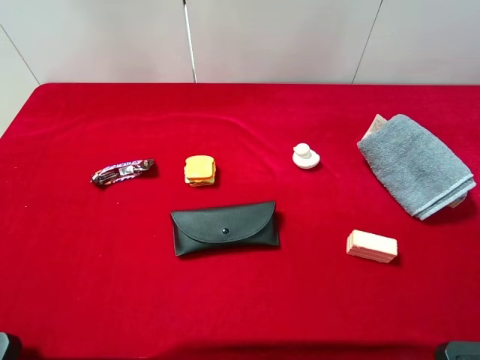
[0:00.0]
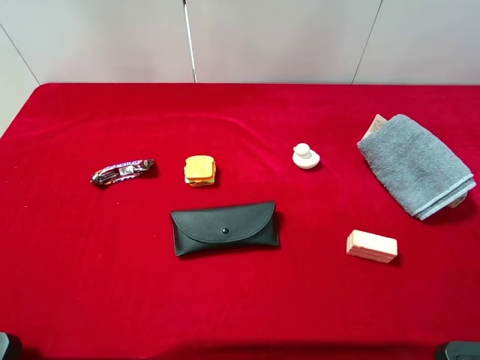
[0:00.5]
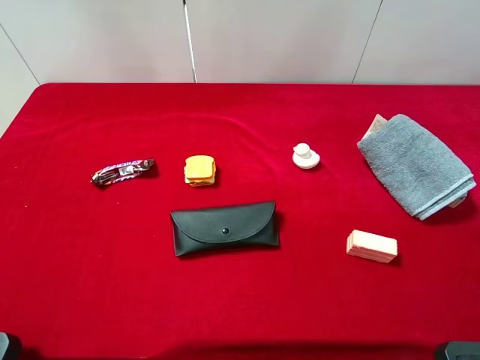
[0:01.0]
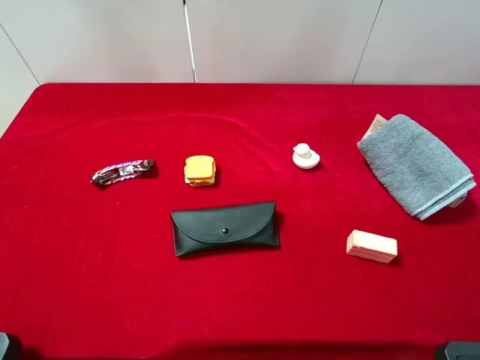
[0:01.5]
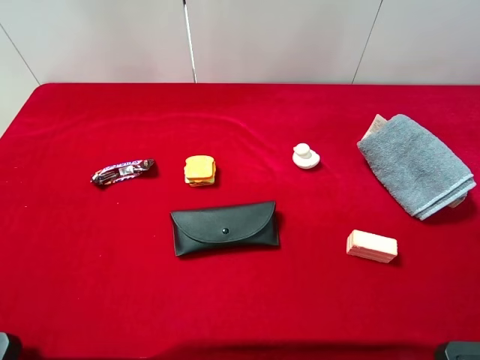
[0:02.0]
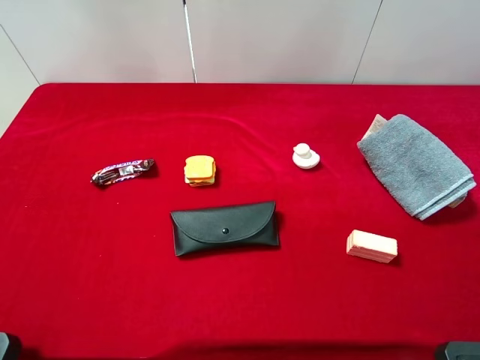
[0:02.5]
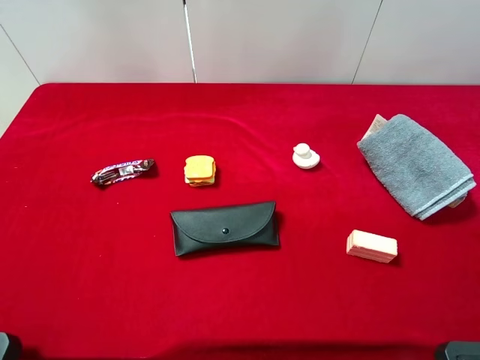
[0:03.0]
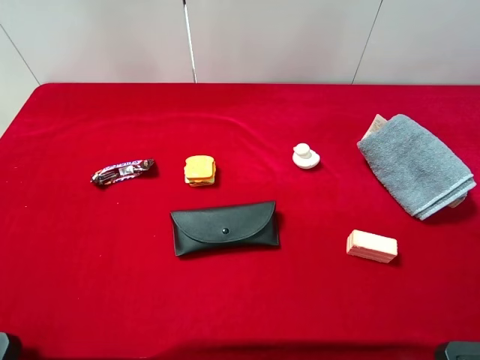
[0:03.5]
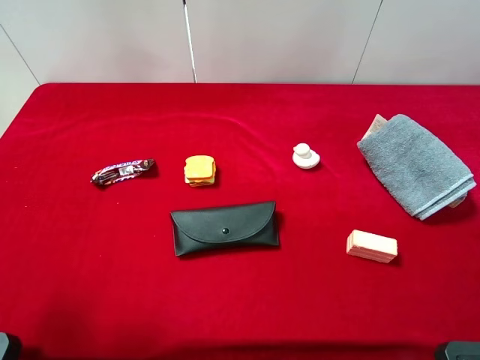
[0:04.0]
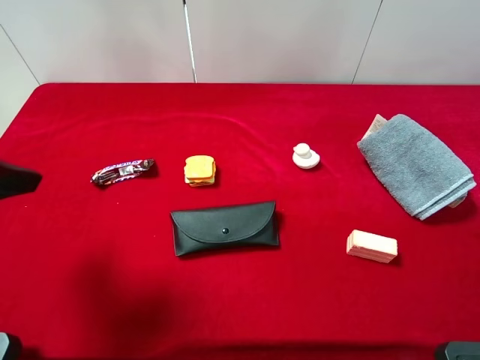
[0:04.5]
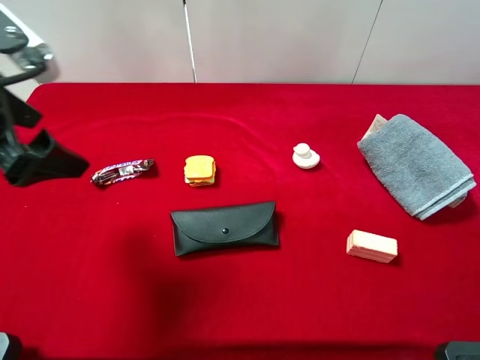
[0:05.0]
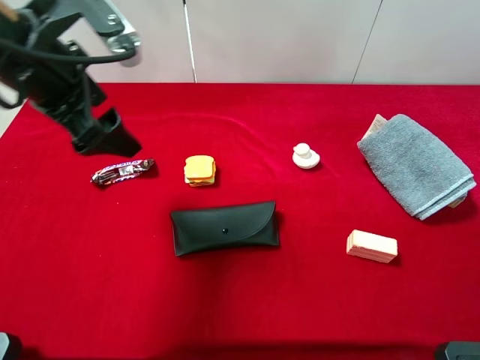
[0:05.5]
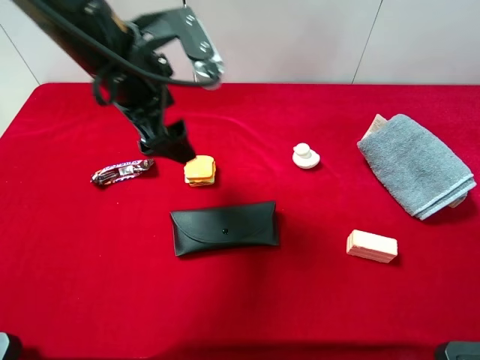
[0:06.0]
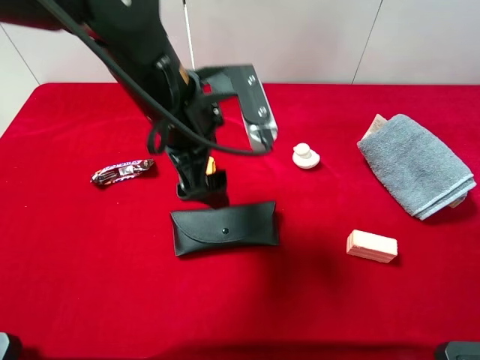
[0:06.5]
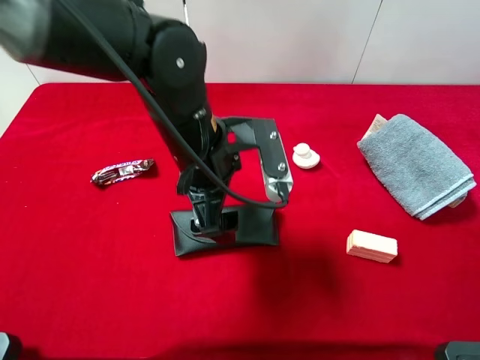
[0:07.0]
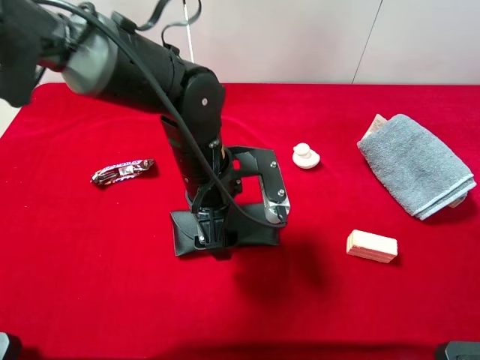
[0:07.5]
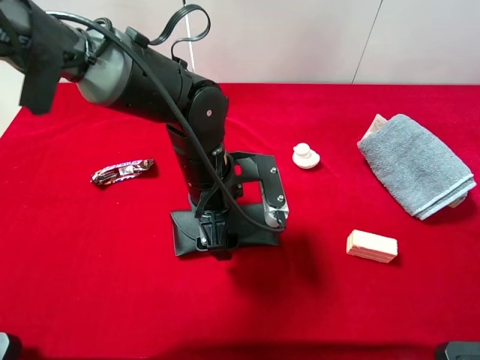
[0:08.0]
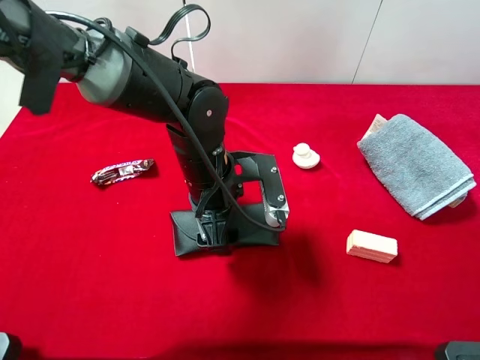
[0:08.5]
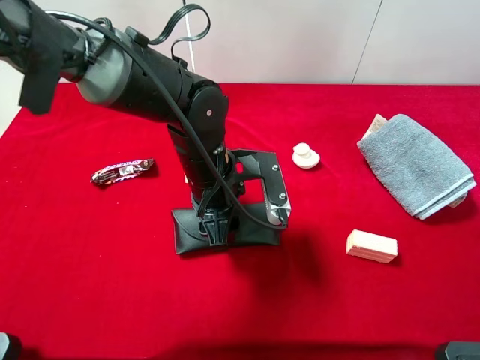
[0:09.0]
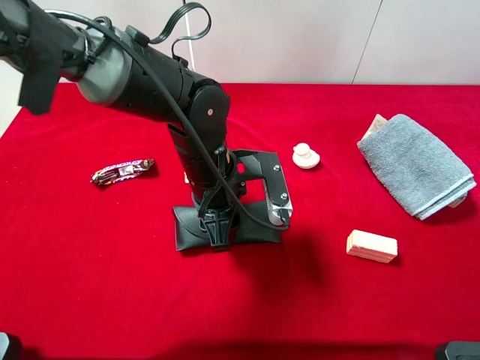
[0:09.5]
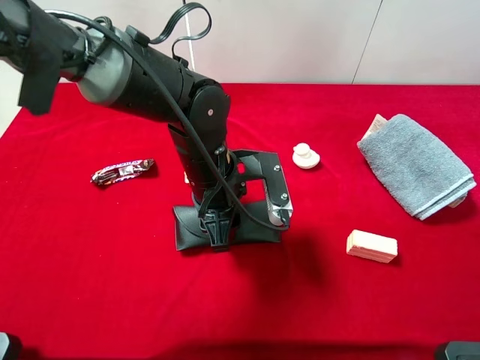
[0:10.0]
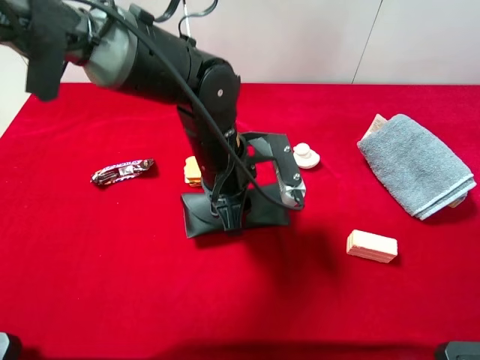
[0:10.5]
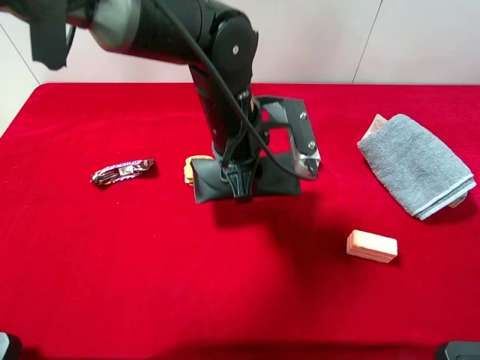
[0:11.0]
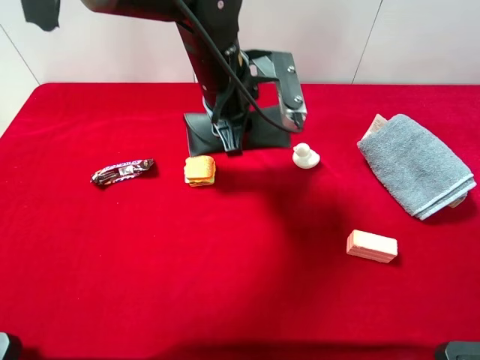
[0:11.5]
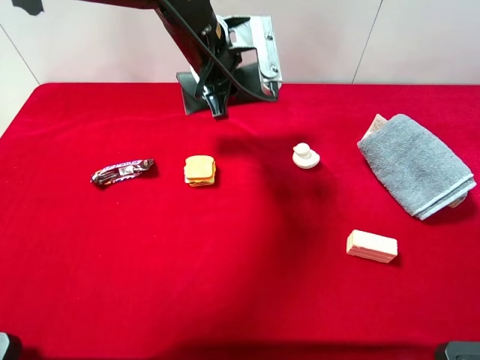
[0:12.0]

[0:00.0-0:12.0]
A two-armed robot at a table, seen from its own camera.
Task of the whole recording: the gripper move the object.
Step, 0:00.0 to 0:09.5: Grasp the eyeglass case with the left gripper.
0:00.0 to 0:02.0: The two grippers keep their place.
0:04.0 to 0:06.0: The left gripper shifts roughly 25 cm forward and to the right.
0:06.0 to 0:08.0: The left gripper shifts some 15 cm downward and to the right.
0:08.0 to 0:10.0: The left gripper closes.
0:10.0 to 0:12.0: The left gripper heads forward and upward, covering roughly 15 cm.

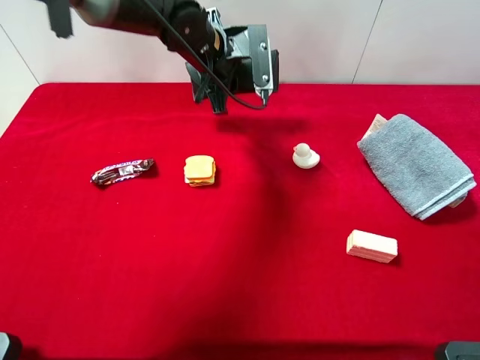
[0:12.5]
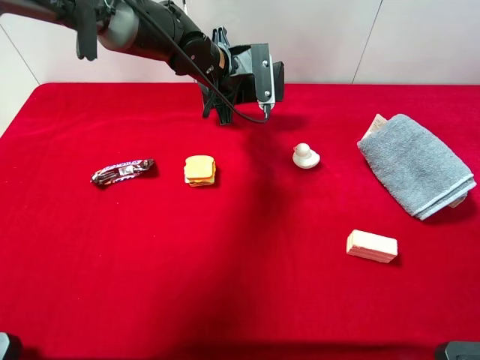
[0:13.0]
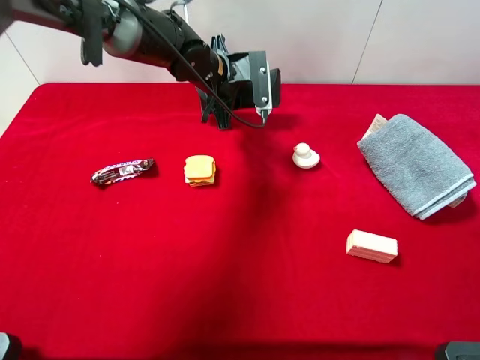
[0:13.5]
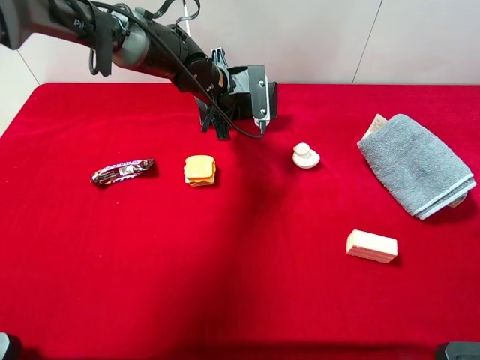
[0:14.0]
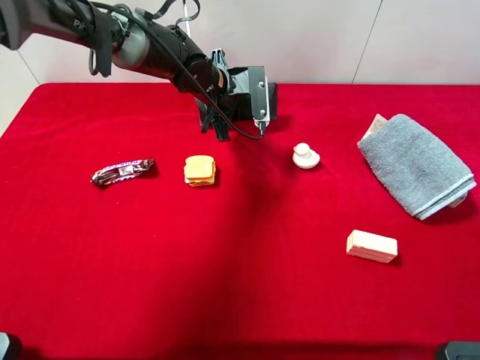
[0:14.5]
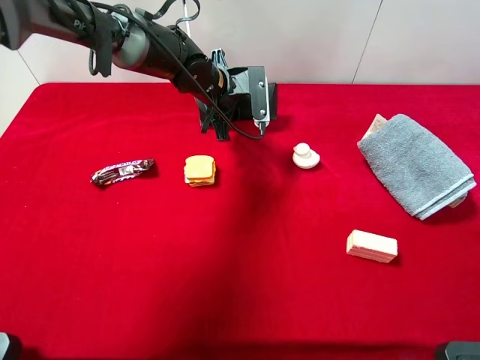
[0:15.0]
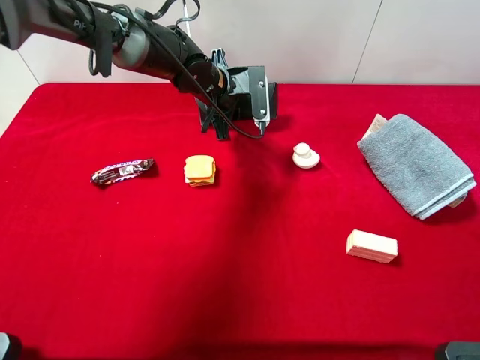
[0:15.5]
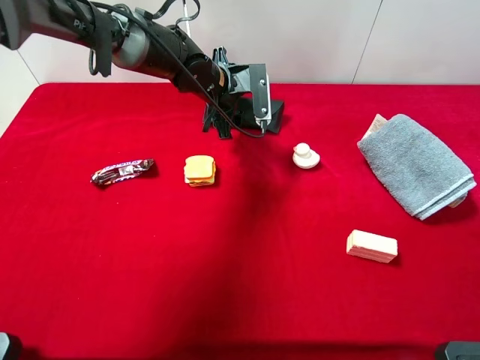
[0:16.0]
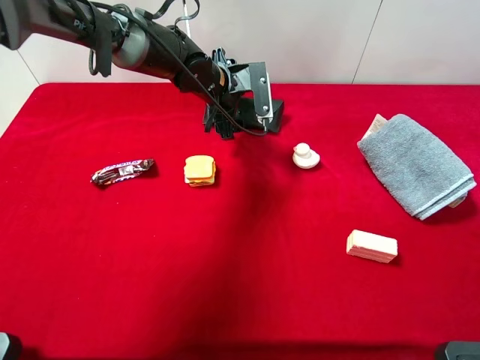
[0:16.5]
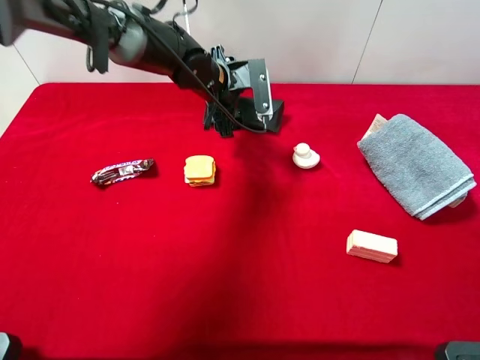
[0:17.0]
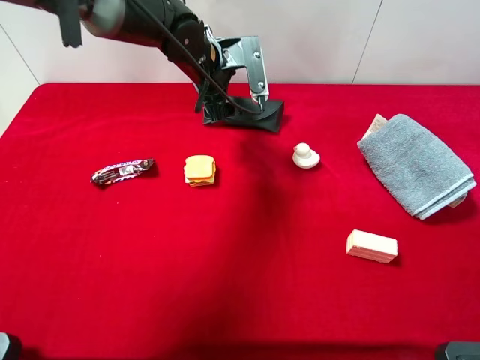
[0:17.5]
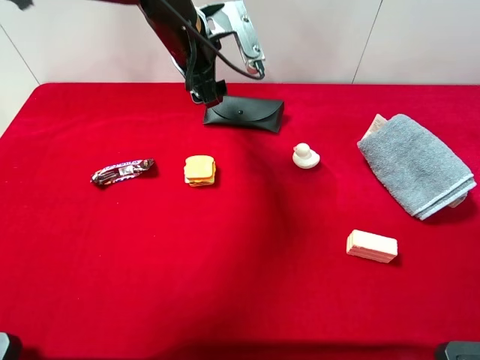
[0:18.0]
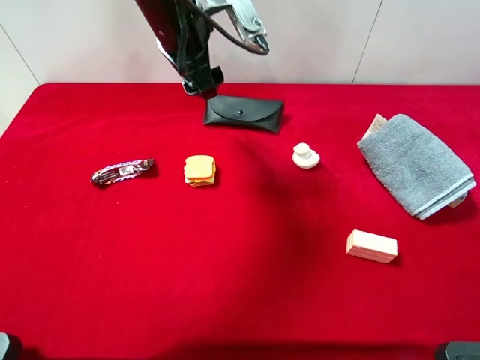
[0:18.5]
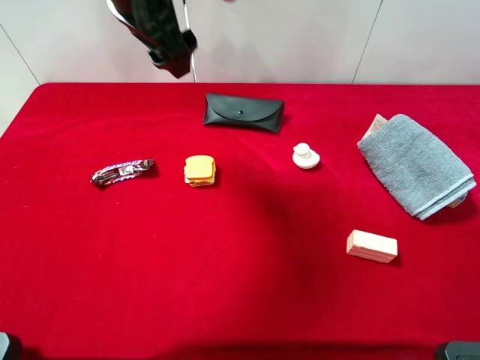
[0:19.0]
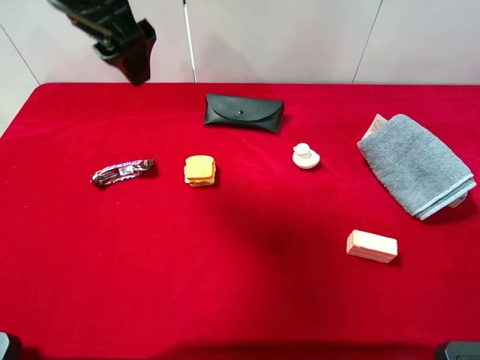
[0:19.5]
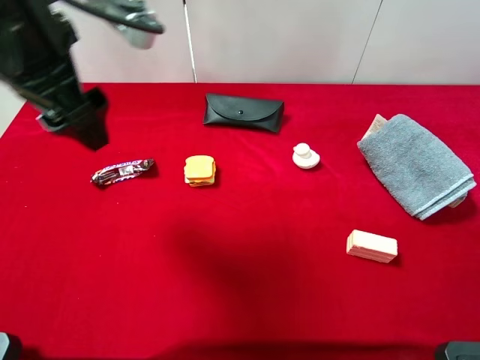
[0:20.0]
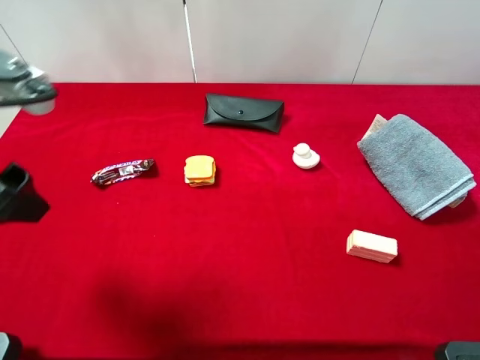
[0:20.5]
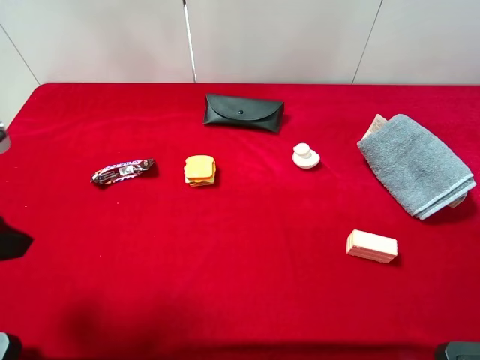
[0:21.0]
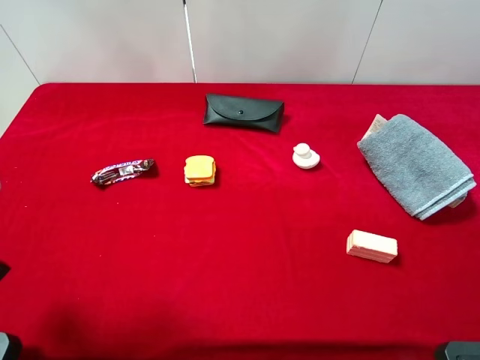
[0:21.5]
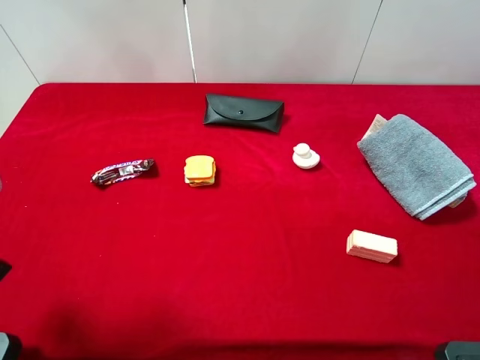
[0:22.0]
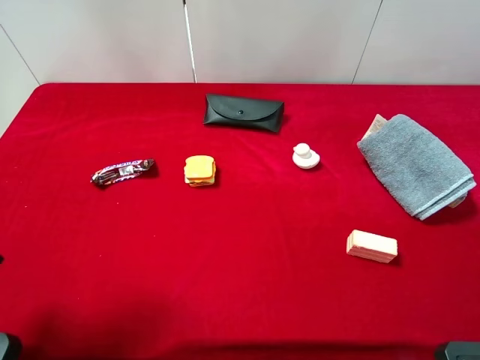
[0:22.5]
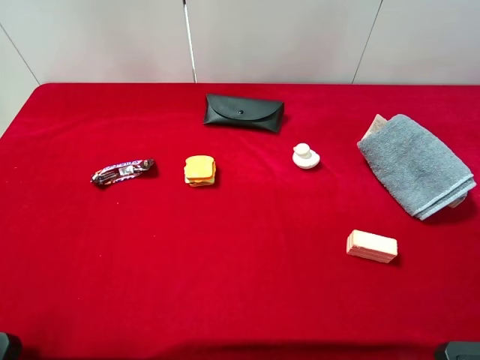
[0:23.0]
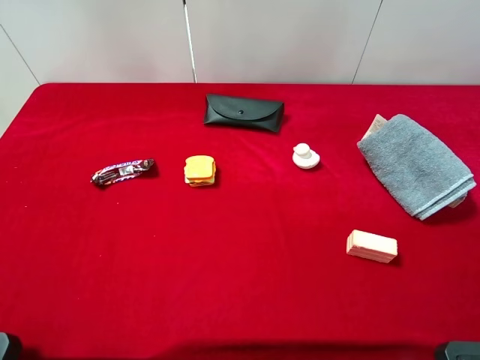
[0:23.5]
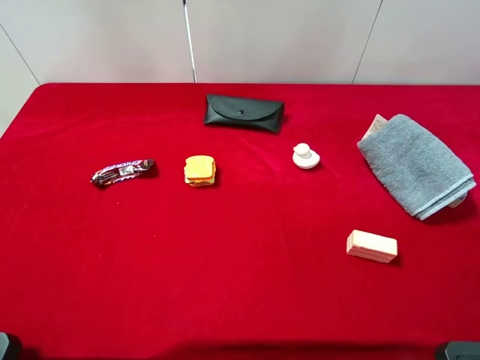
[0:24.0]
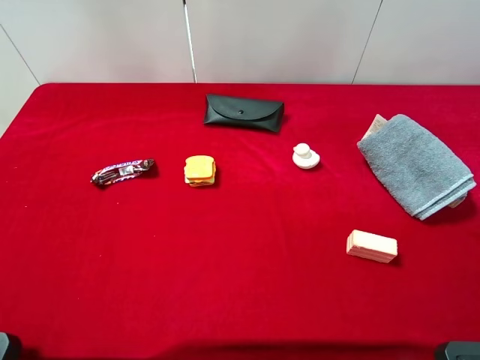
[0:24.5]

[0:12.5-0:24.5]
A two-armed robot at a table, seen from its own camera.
Task of the whole recording: the gripper move the object.
Step, 0:12.5 to 0:18.0: Place the eyeglass case on the table with the left gripper.
0:12.5 to 0:14.5: The left gripper travels downward by some 5 cm.
0:14.5 to 0:16.5: The left gripper opens.
0:16.5 to 0:18.5: The left gripper is displaced upward and backward by about 15 cm.
0:18.5 to 0:20.5: The left gripper moves backward and to the left, approximately 30 cm.
0:20.5 to 0:22.5: The left gripper travels to the left by roughly 5 cm.
0:22.5 to 0:24.5: The left gripper heads backward, covering approximately 10 cm.
